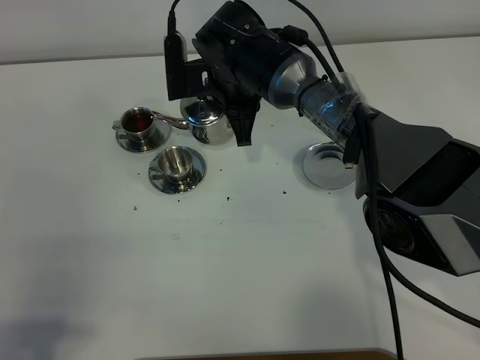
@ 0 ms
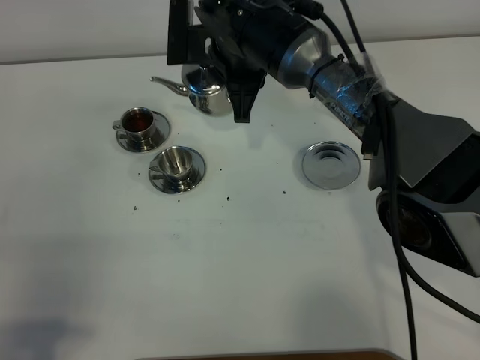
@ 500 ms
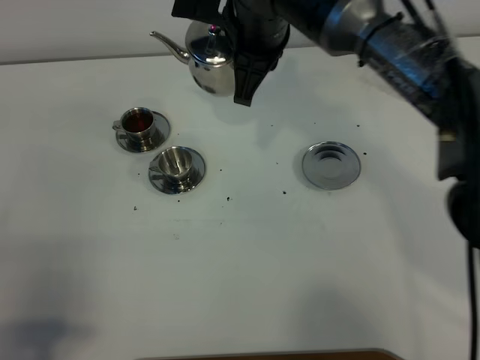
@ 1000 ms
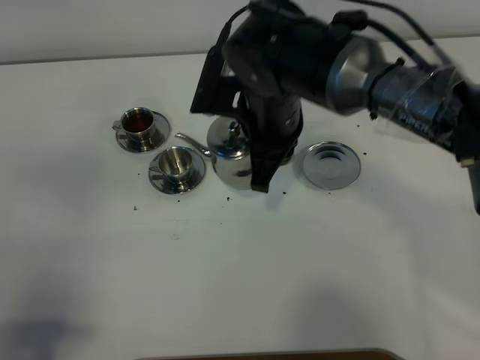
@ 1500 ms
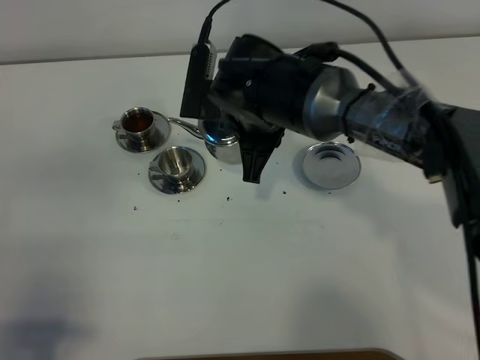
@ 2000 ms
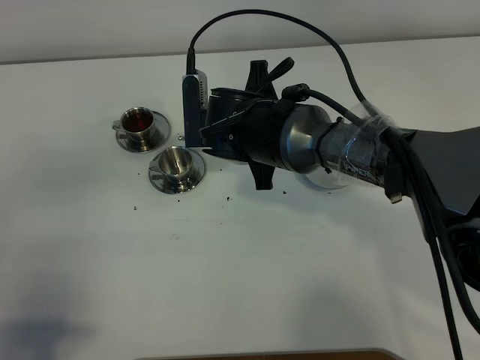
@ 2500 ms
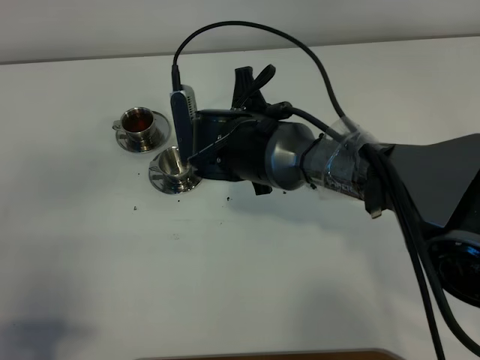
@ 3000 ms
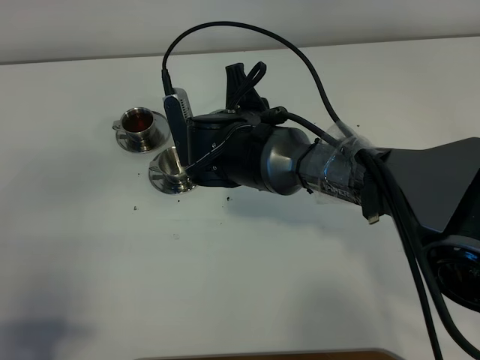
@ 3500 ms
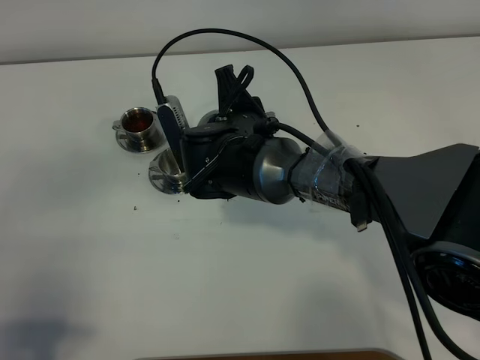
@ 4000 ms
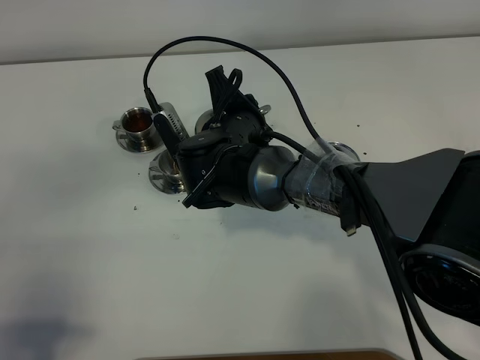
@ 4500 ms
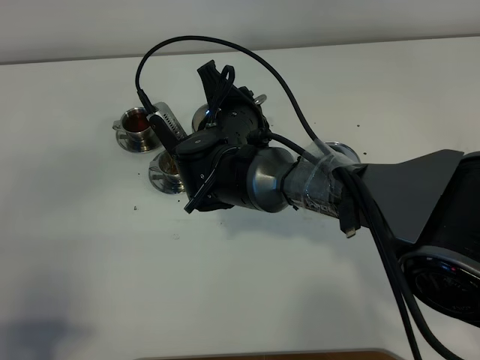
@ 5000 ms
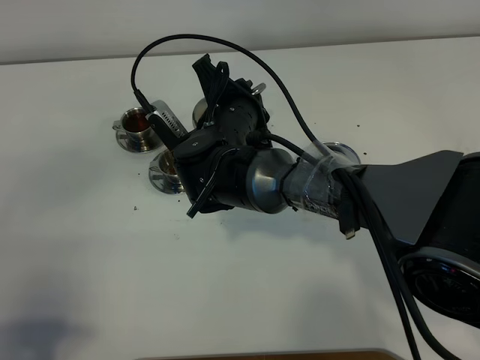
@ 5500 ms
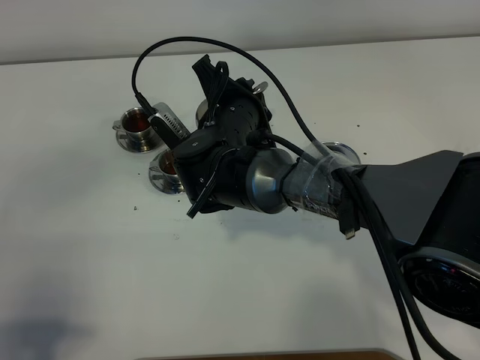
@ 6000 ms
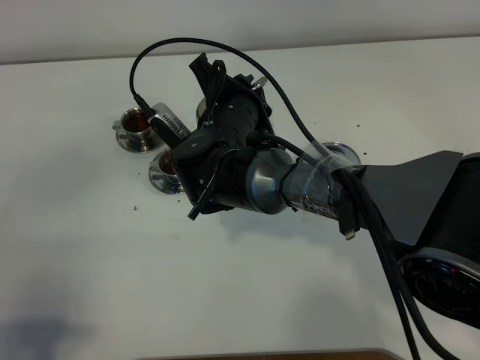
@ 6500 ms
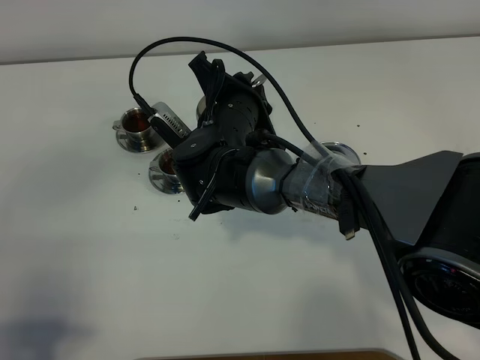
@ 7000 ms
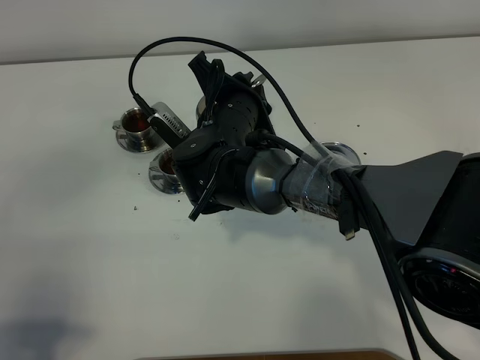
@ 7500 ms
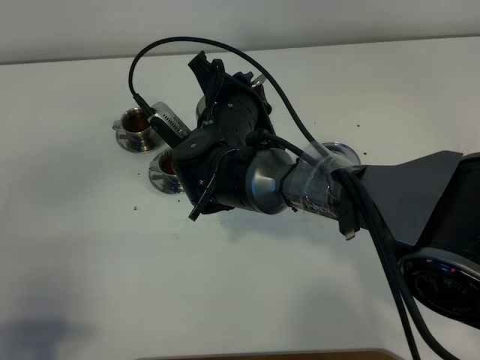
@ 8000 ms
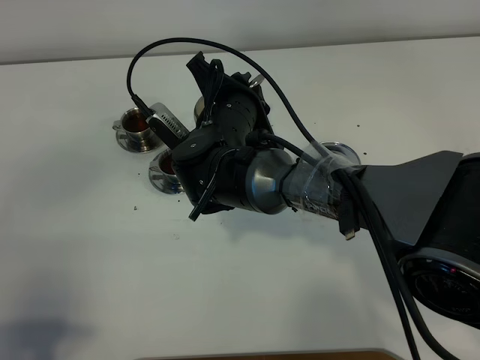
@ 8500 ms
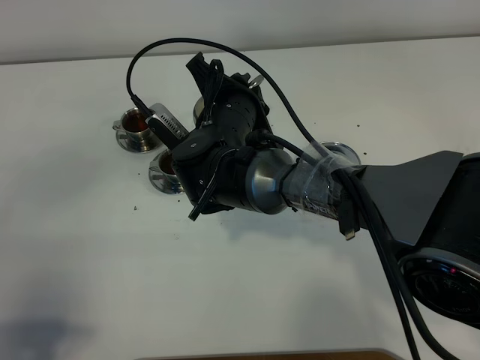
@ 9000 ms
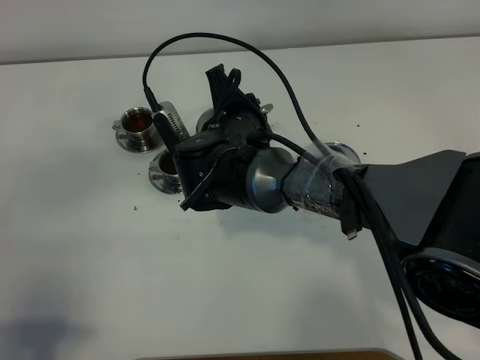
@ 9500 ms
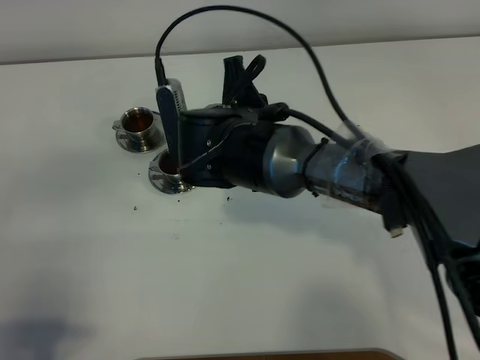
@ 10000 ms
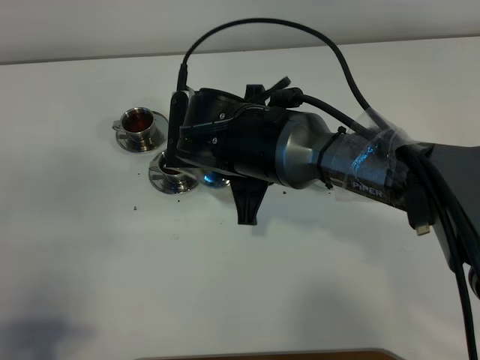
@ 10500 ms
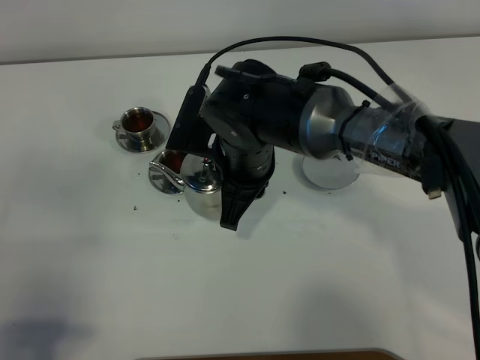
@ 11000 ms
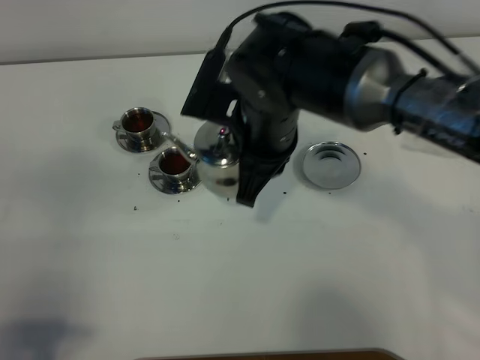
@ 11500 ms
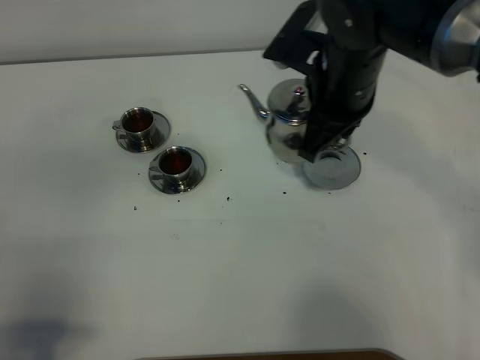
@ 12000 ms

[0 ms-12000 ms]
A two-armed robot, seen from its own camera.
Task of the whole recording: grasp the stainless steel teapot and pour the tea into the two stainless steel teacups one by one, put the stainless steel teapot back in its original place.
Step, 0 ms to 10000 ms: Pour tea into the teacup with the right gripper.
0 ms to 2000 ms: The right gripper is displaced backward by roughly 10 cm, and moves some 10 cm upward and comes back.
4000 ms to 6000 ms: The grippers move only a little.
6000 ms to 8000 ms: Both grippers stay put.
10000 ms to 12000 ms: The right gripper shifts approximately 15 cm to the right and upward.

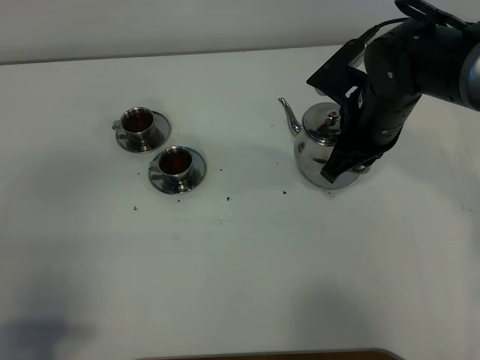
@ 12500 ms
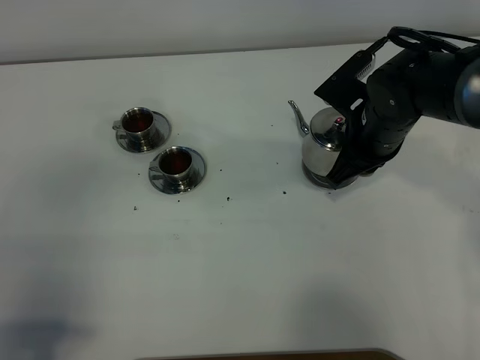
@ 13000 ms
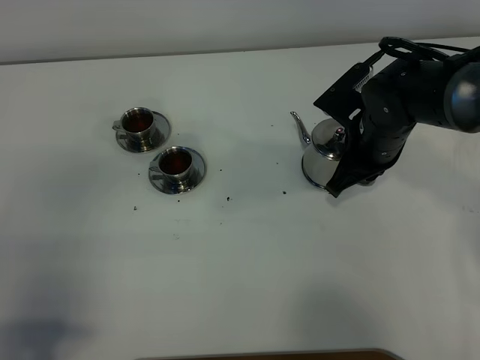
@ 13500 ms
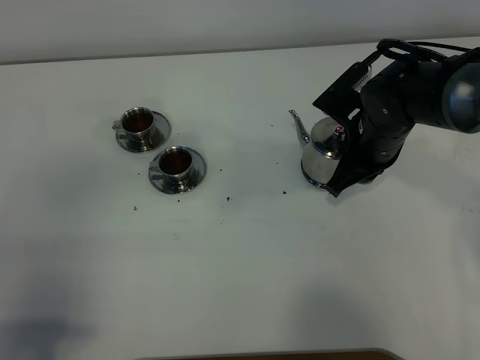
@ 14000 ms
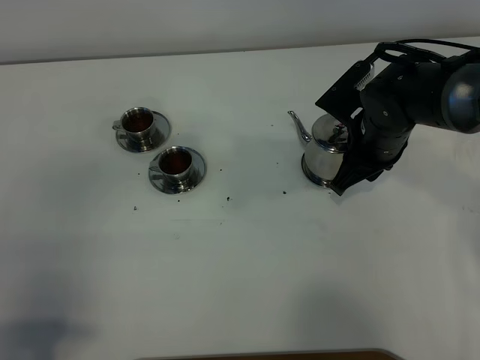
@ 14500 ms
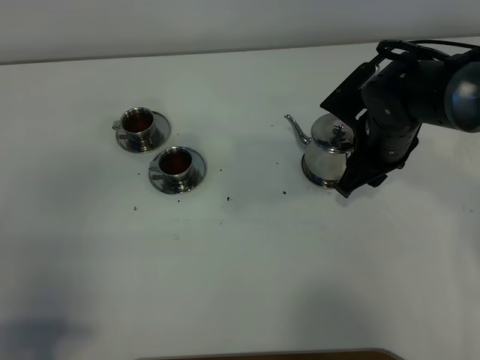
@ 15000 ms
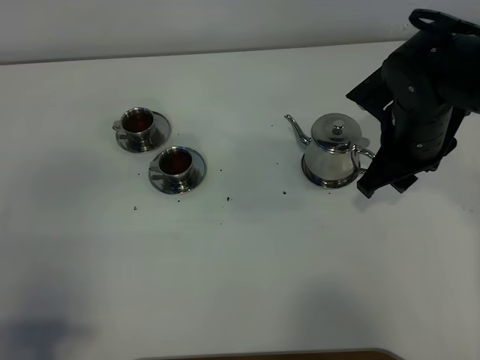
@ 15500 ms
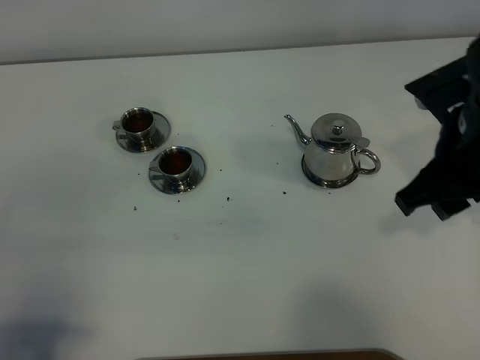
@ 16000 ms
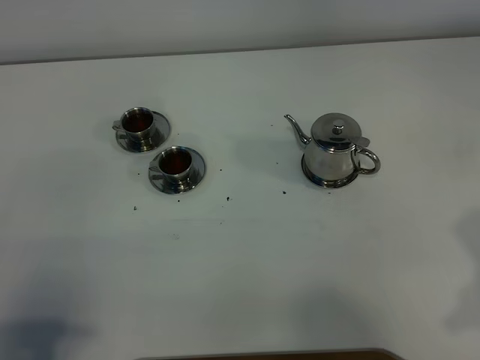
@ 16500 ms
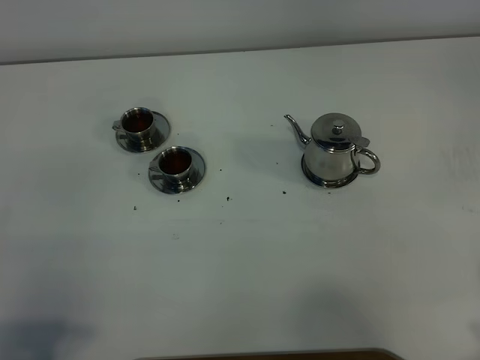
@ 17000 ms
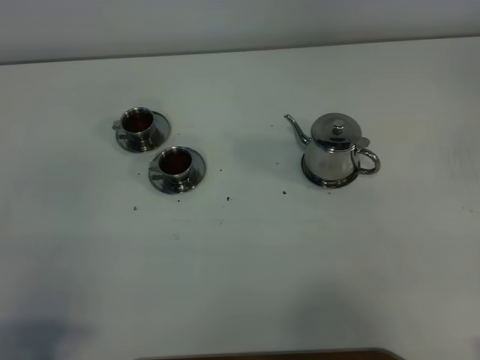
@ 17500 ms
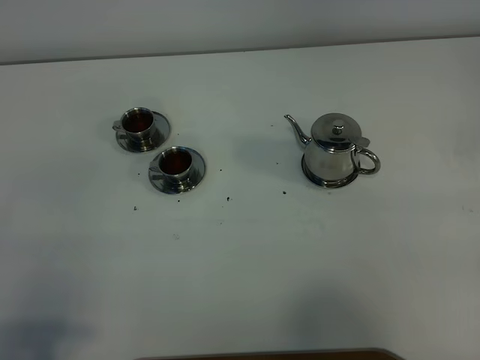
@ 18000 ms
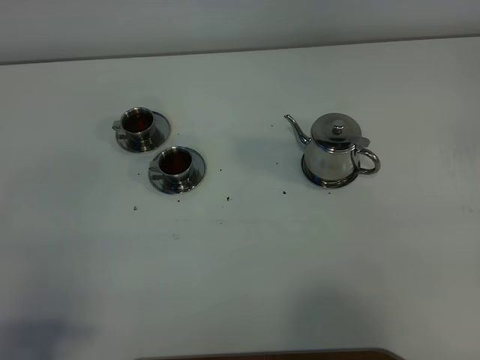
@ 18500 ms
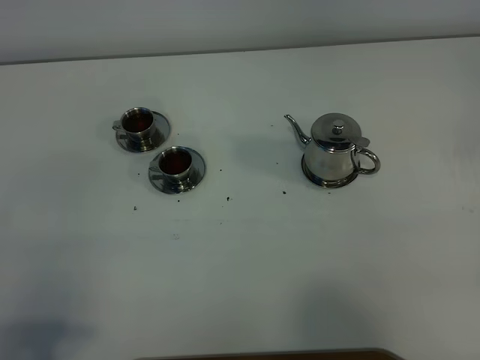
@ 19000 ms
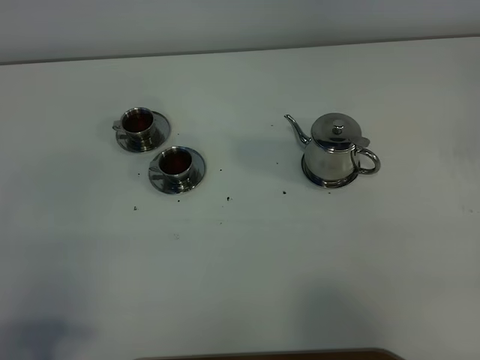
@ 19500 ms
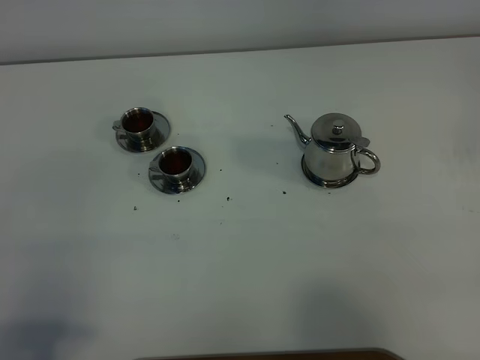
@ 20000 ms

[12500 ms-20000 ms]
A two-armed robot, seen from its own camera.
Task of the whole recording: grasp the stainless steel teapot and pour the tea into the two stainless steel teacups one by one, put the stainless steel teapot back in its original place.
12500 ms to 14500 ms: The right gripper opens its fingers.
14500 ms to 16500 ms: The right gripper shifts about 30 cm backward, to the right and upward, and opens.
